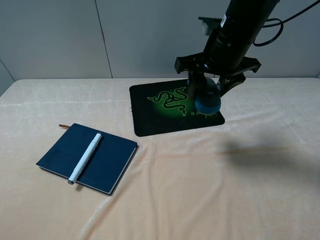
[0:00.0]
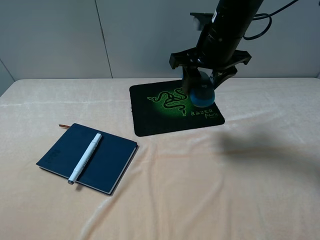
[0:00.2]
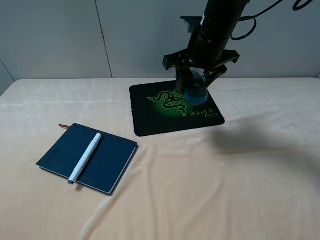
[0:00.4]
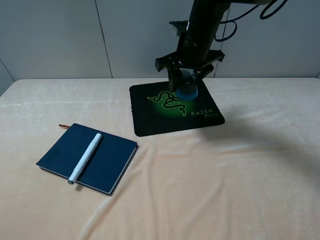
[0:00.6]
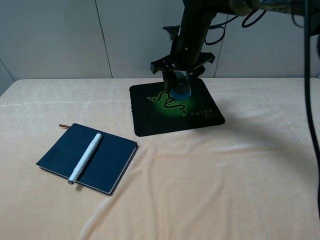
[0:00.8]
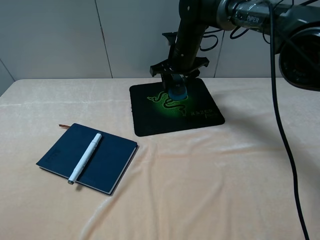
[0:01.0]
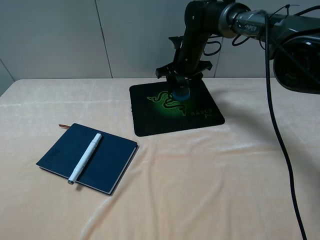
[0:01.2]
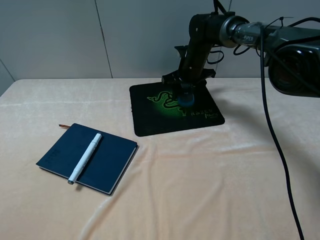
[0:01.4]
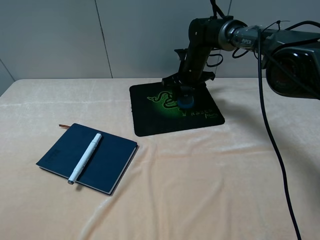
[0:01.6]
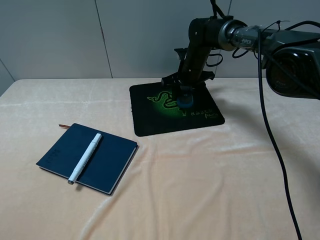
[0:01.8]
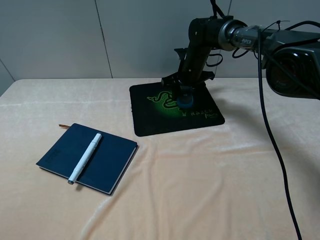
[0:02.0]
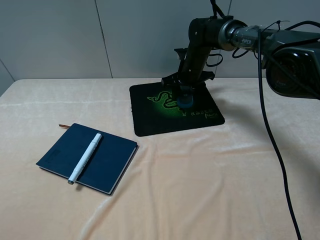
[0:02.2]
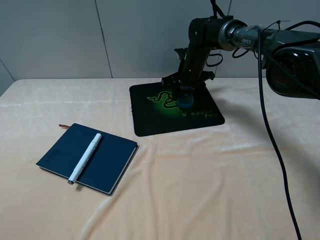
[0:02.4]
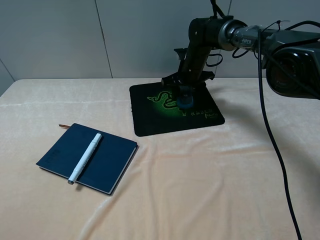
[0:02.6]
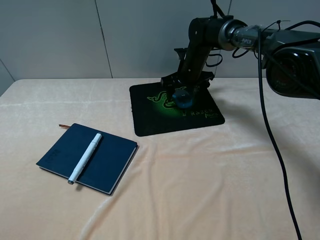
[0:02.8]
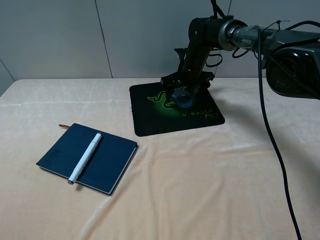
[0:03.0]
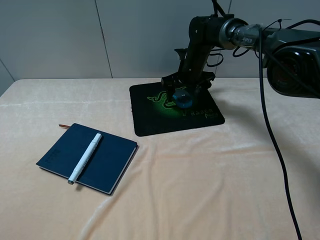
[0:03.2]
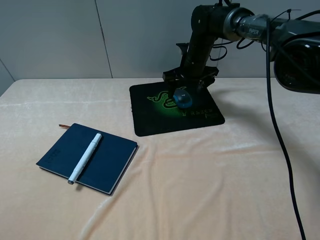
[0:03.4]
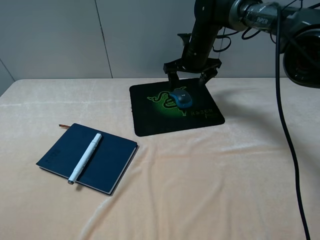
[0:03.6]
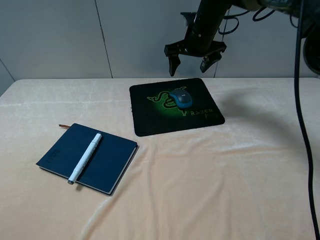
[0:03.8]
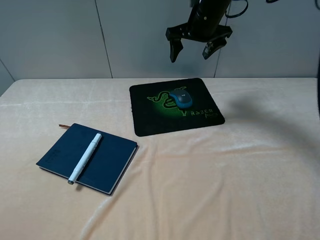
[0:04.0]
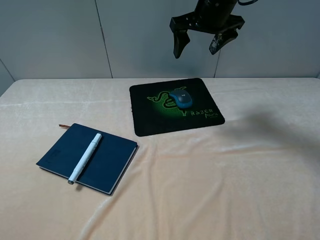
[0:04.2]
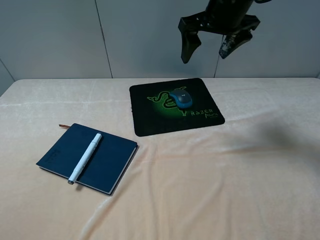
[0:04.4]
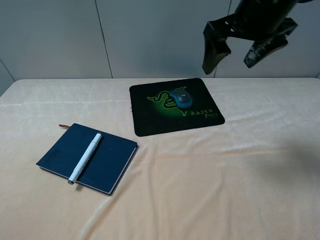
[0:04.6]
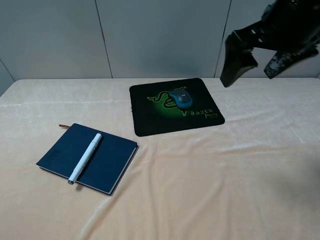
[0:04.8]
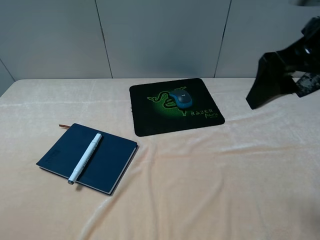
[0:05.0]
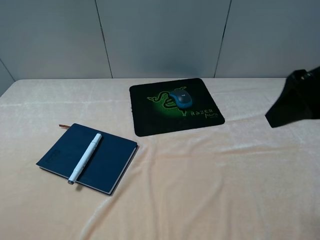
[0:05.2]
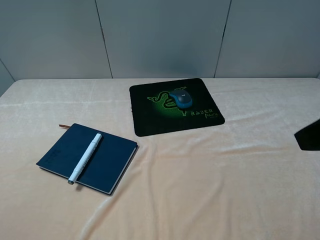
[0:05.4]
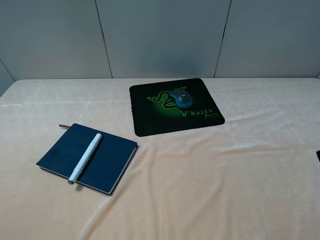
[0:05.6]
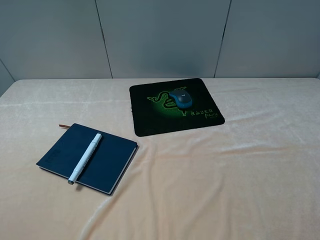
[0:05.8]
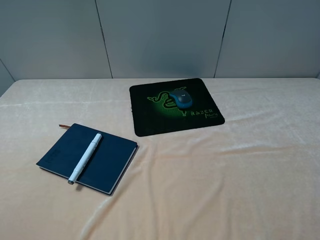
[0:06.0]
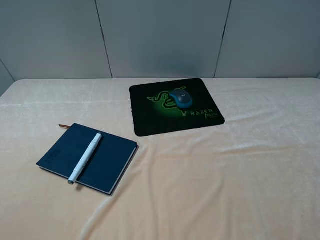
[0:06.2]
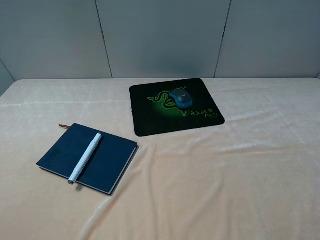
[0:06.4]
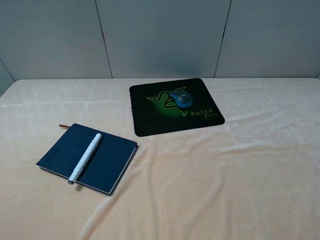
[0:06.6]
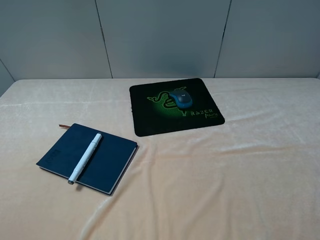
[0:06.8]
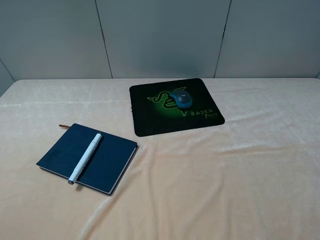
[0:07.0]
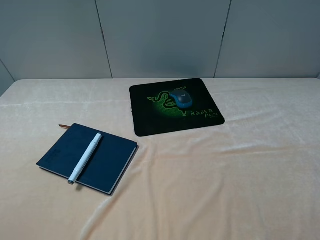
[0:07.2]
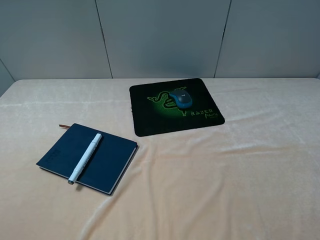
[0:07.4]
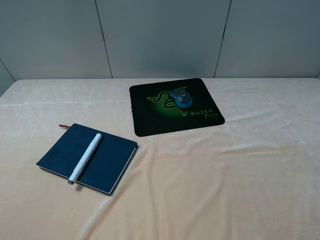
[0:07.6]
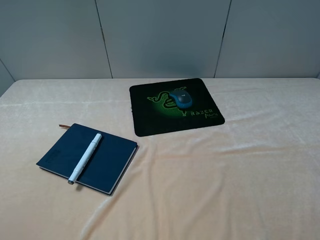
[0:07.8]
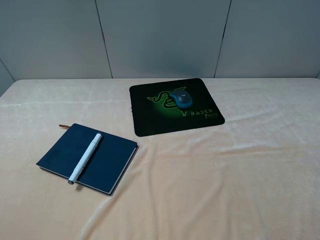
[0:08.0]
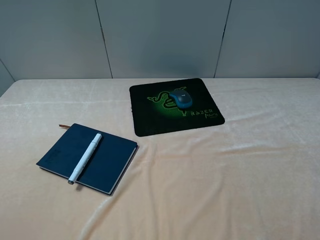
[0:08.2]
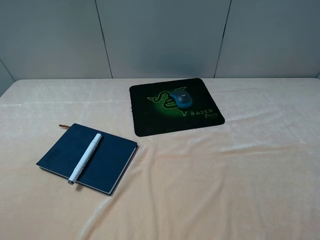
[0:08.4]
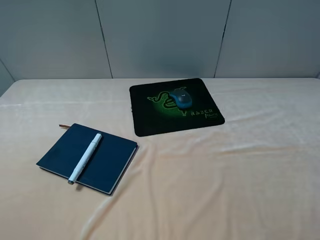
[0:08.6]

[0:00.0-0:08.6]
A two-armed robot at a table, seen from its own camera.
Step, 0:00.0 to 0:03.4: Place the mouse on the mouse pad with the right gripper.
0:00.0 to 0:01.4: The right gripper shifts about 20 cm forward and downward.
0:01.4 to 0:02.8: The right gripper opens its fingers.
0:02.8 to 0:04.4: The right gripper goes about 25 cm upward and backward.
0:04.4 to 0:05.8: The right gripper moves backward and to the right, about 35 cm.
0:07.2 to 0:08.6: Both grippers stay about where they are.
